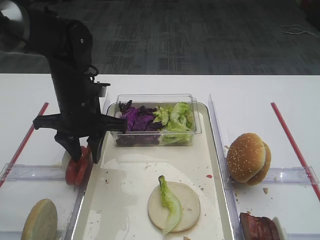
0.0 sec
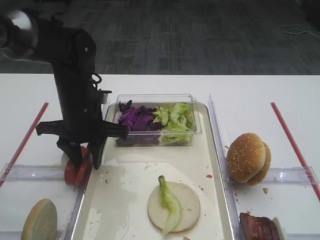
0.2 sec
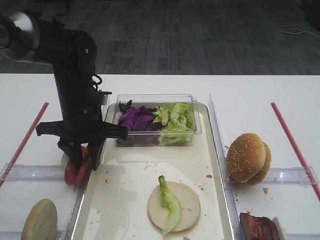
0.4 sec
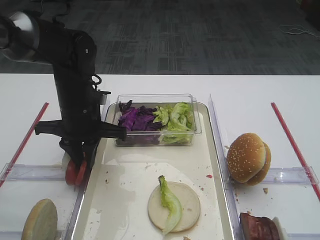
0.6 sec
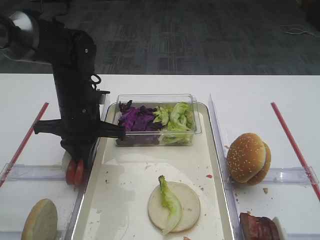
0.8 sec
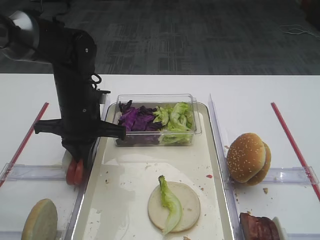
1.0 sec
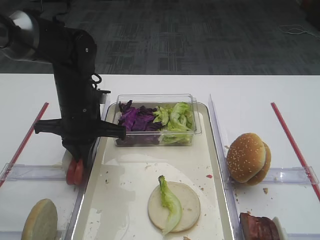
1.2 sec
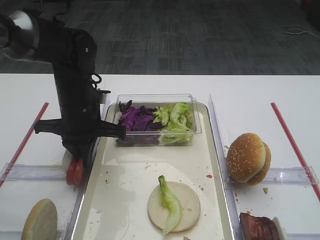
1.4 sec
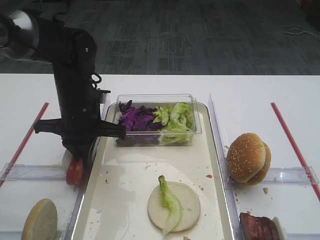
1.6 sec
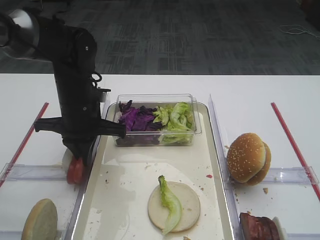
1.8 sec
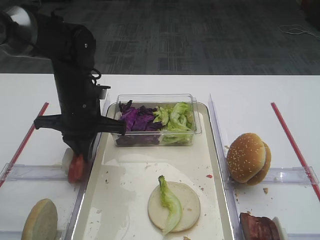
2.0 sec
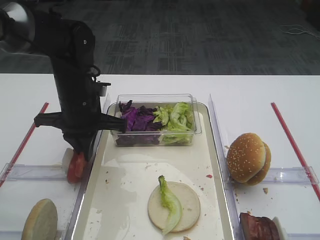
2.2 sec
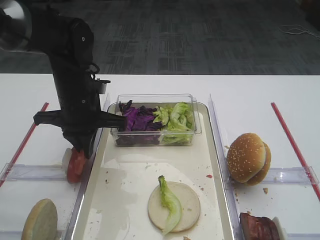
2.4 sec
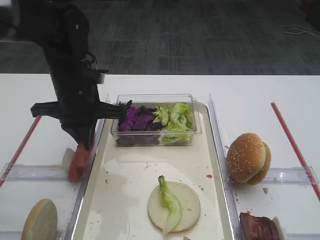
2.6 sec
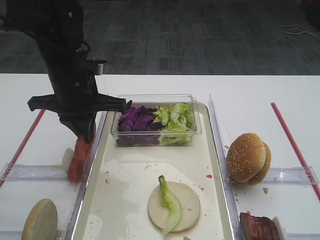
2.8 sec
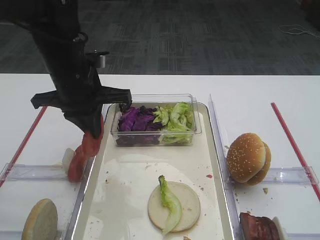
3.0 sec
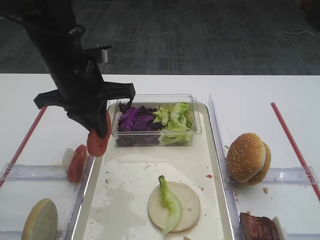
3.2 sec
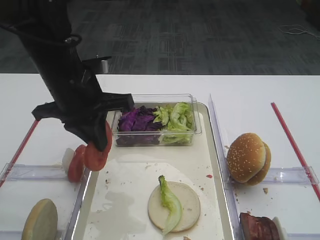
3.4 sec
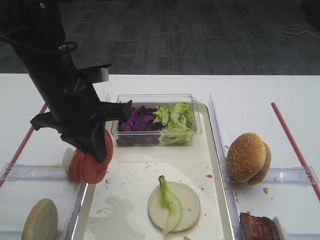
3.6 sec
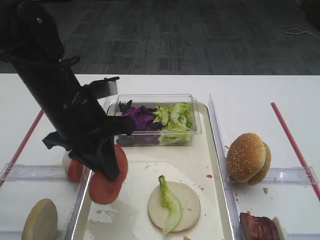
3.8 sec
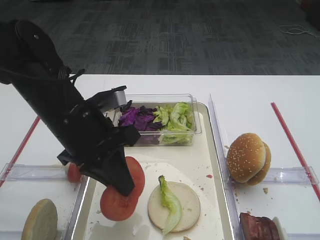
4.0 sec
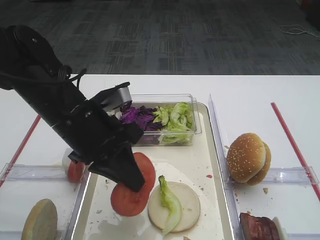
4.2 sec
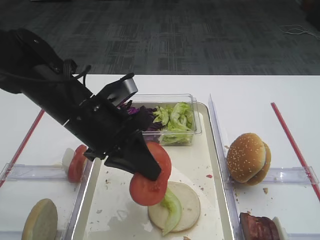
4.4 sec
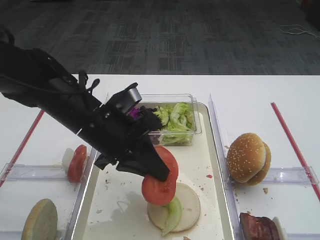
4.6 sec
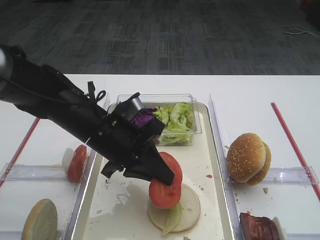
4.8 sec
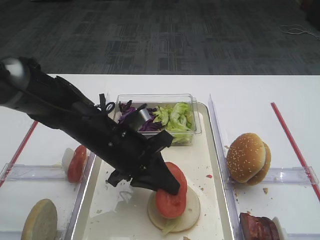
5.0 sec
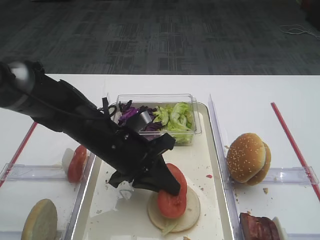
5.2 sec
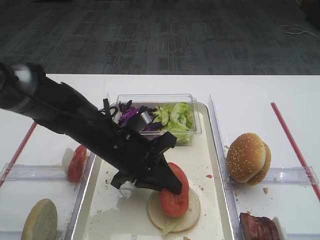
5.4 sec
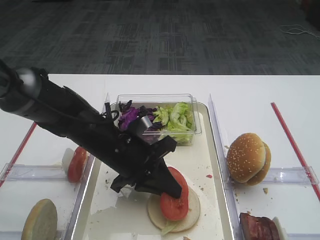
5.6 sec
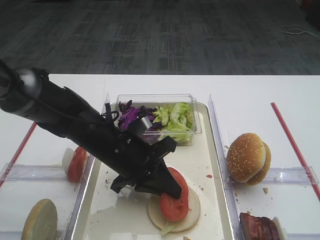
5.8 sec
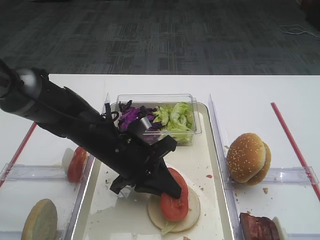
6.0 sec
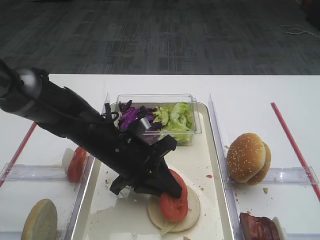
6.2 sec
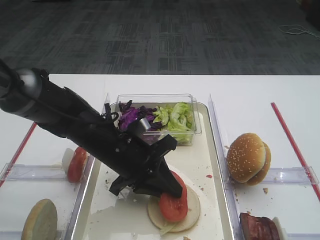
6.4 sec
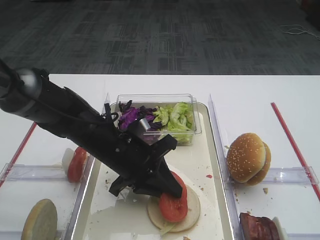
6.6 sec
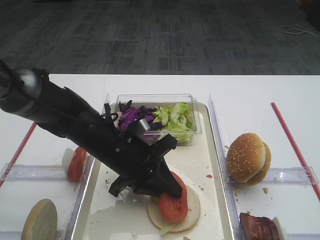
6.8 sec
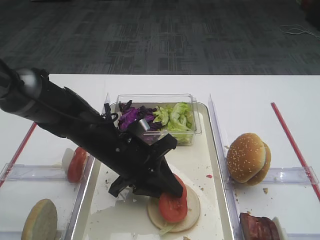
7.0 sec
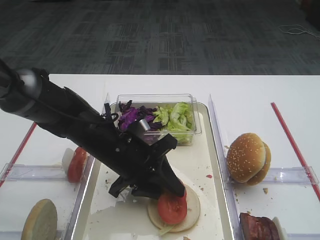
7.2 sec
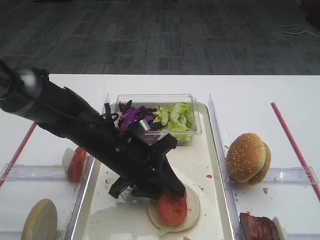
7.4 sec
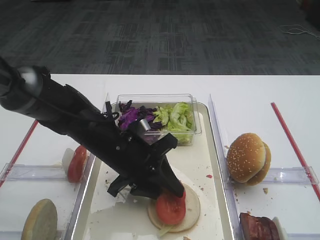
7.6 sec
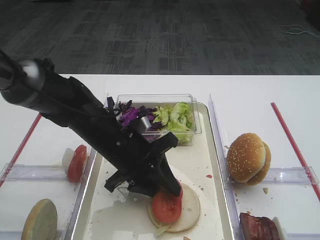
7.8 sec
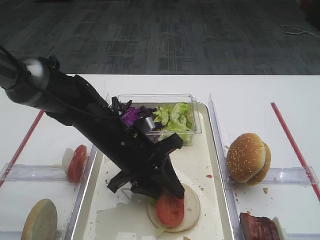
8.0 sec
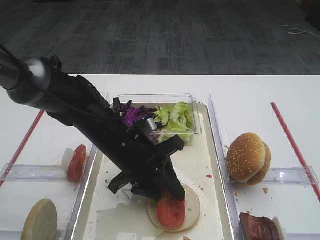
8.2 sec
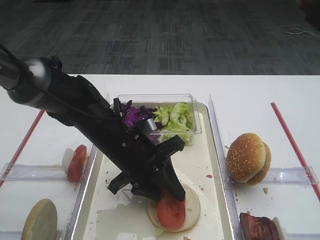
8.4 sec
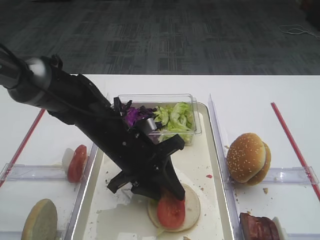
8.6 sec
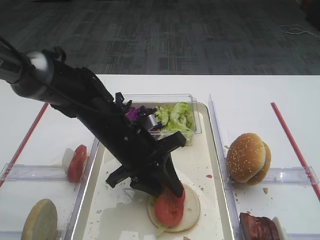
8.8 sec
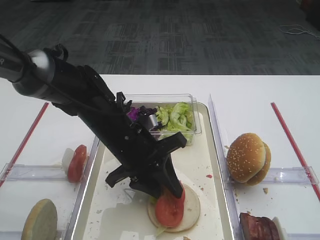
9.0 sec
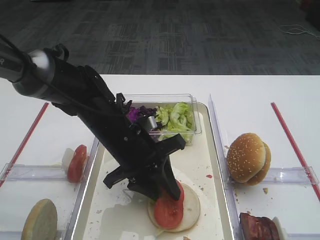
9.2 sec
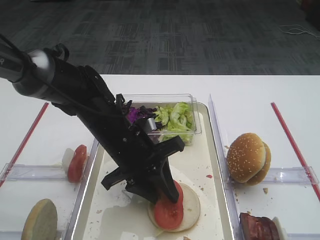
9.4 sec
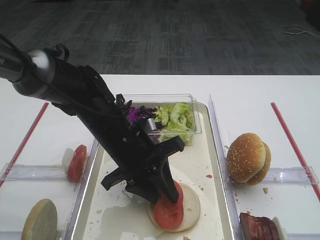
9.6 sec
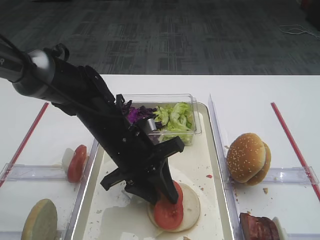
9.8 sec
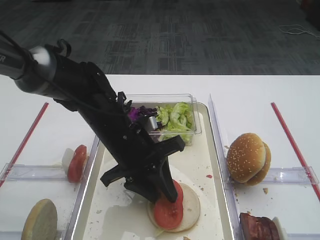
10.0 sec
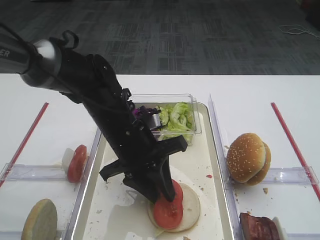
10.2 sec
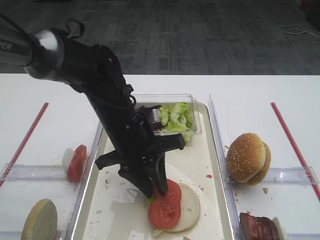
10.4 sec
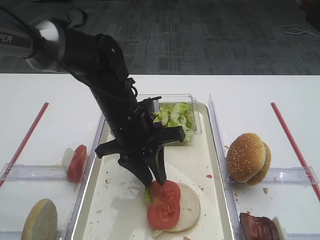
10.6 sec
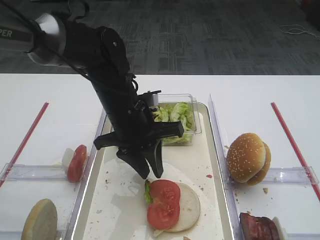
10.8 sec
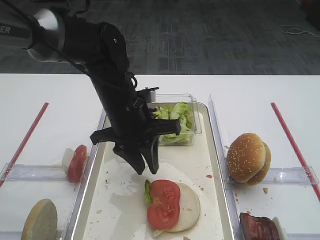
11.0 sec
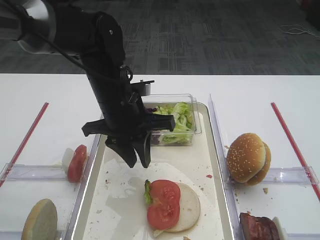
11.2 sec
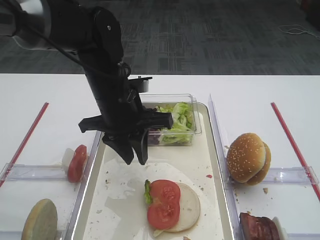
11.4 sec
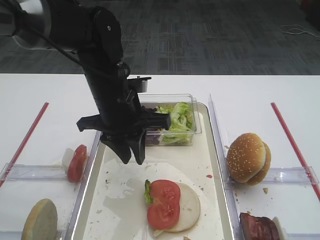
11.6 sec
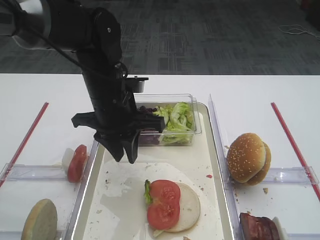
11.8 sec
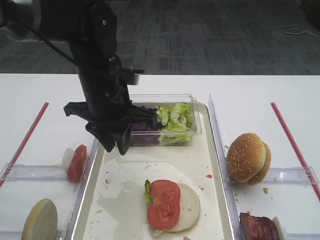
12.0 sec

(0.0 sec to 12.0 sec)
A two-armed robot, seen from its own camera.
Step, 0.0 sec - 2.6 sec: Pick up the tomato slice with the left gripper.
Step, 2.8 sec - 10.6 sec: Place the tomato slice on the lettuce leaf with the left gripper.
0.0 sec - 1.6 sec: The left gripper closes up.
1.6 sec - 3.0 sec: The left gripper goes some 5 cm upward.
3.0 sec - 4.4 sec: The left gripper travels backward by some 5 cm.
4.4 sec - 6.0 sec: The left gripper shifts some 10 cm downward.
6.0 sec - 7.6 sec: The left gripper opens up.
7.6 sec - 9.0 sec: The grippers move only a little.
9.0 sec - 10.4 sec: The grippers move only a little.
10.4 sec - 12.0 sec: The left gripper goes about 5 cm upward.

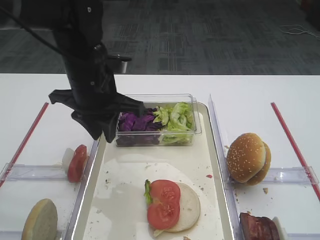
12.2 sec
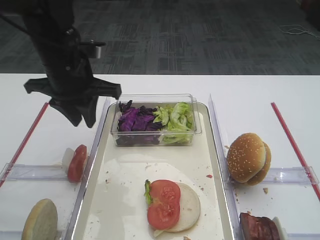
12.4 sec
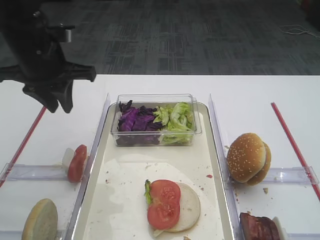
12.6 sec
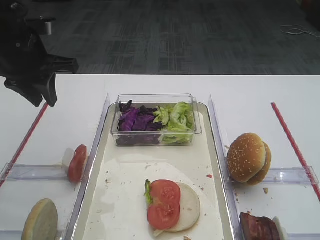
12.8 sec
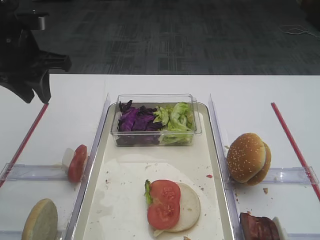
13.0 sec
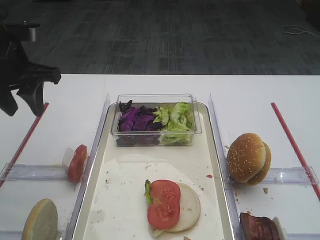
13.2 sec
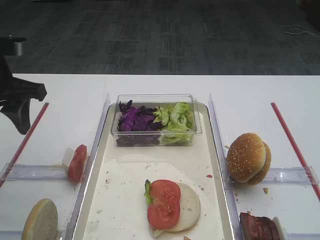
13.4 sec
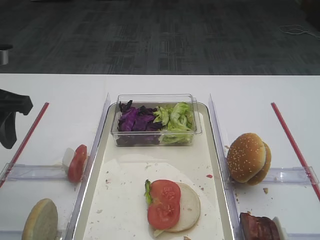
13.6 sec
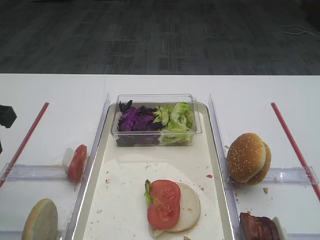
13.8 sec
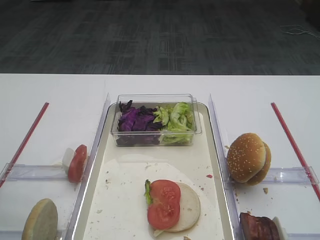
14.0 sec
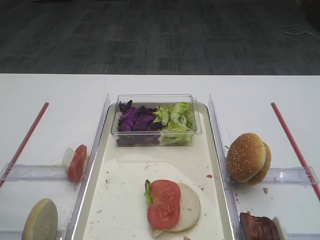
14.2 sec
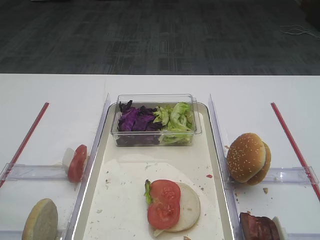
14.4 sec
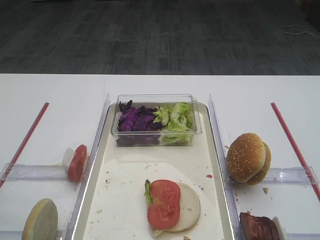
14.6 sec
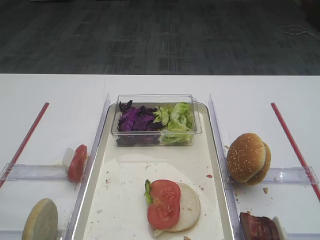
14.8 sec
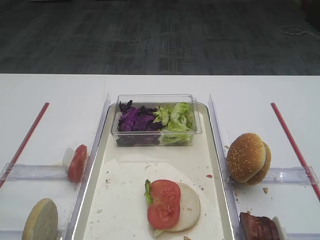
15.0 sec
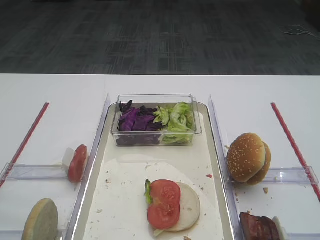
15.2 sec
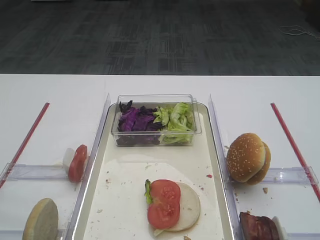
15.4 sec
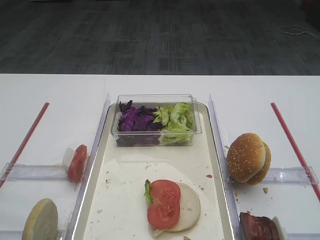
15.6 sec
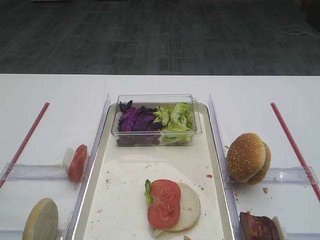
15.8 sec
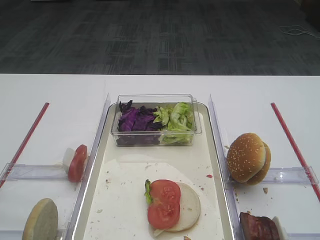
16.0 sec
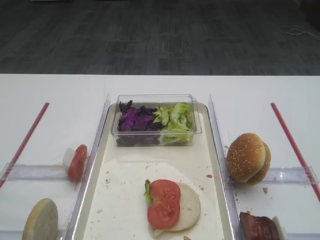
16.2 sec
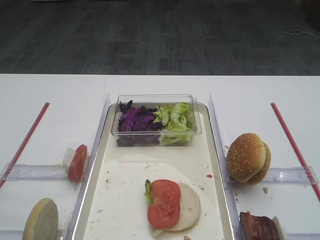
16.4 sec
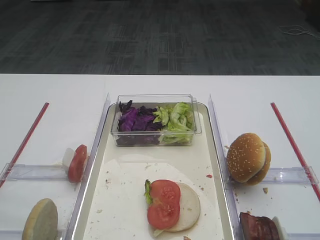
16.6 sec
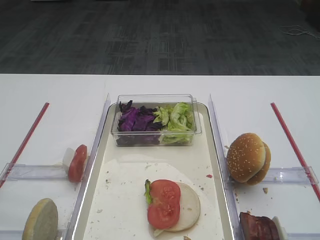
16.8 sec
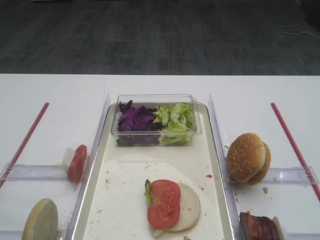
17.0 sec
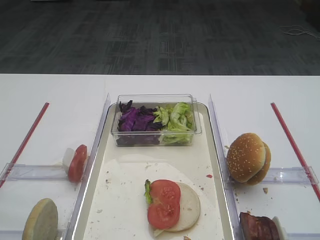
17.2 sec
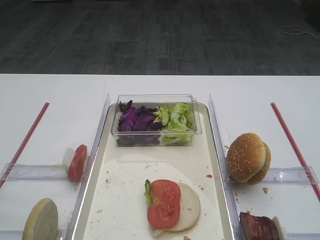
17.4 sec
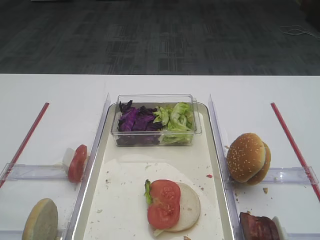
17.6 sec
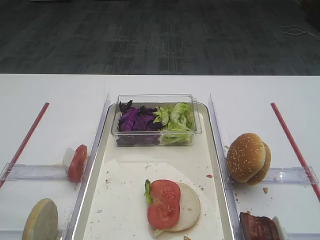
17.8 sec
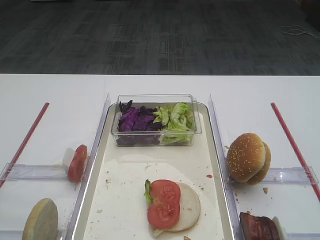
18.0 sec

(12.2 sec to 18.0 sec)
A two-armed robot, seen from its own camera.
12.2 sec - 13.6 sec: The left gripper moves to the left, roughly 15 cm, and opens.
13.6 sec - 15.0 sec: The left gripper moves backward, approximately 25 cm.
16.6 sec - 18.0 sec: Neither gripper changes place.

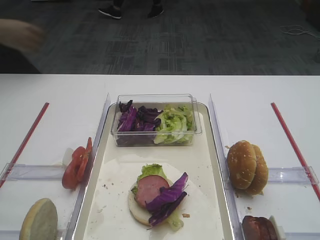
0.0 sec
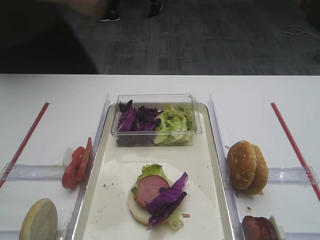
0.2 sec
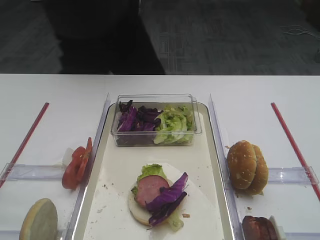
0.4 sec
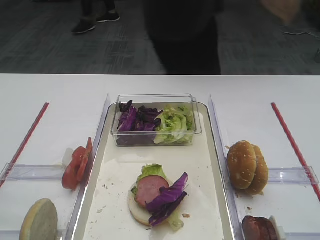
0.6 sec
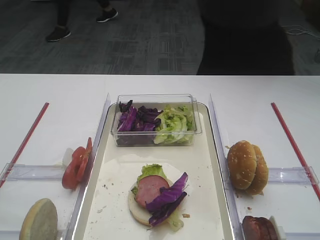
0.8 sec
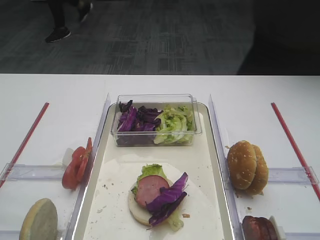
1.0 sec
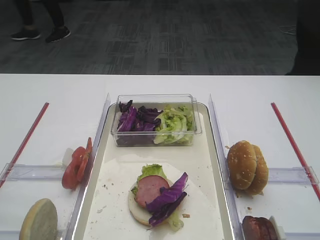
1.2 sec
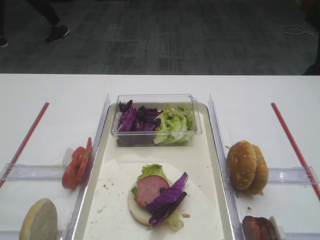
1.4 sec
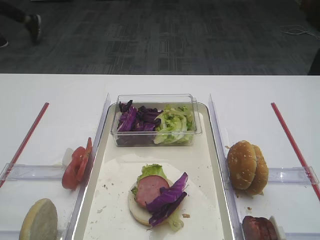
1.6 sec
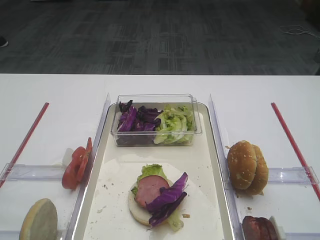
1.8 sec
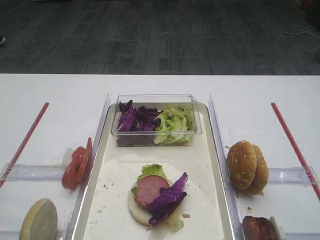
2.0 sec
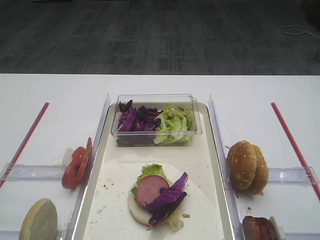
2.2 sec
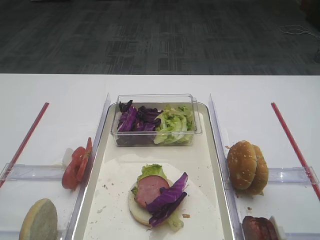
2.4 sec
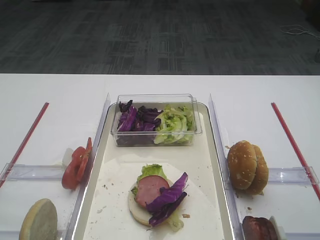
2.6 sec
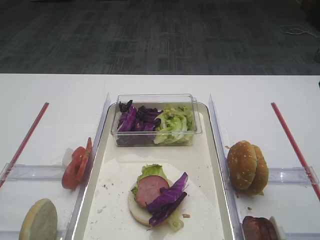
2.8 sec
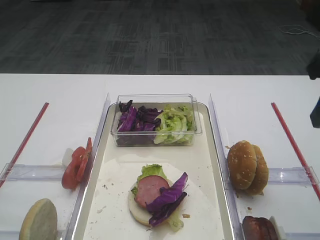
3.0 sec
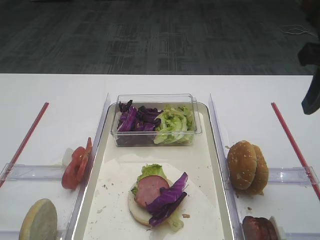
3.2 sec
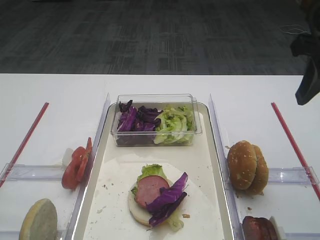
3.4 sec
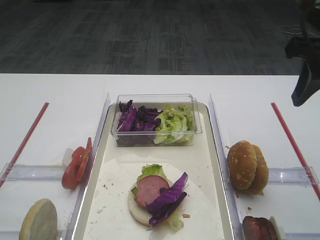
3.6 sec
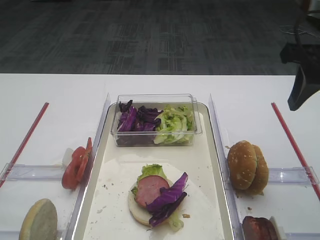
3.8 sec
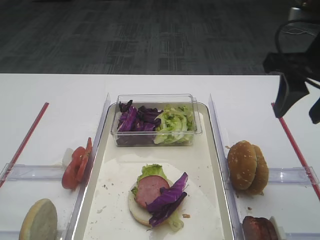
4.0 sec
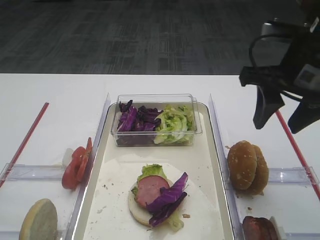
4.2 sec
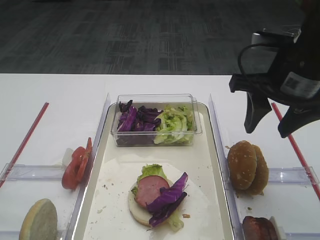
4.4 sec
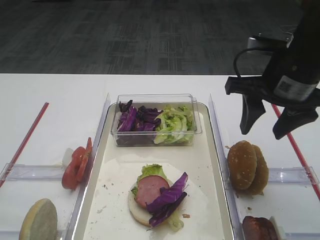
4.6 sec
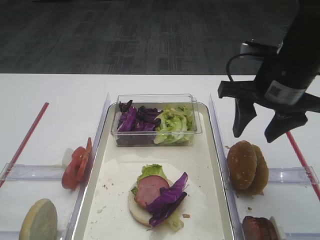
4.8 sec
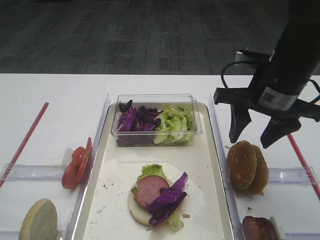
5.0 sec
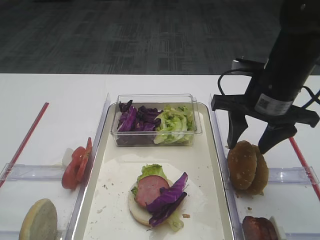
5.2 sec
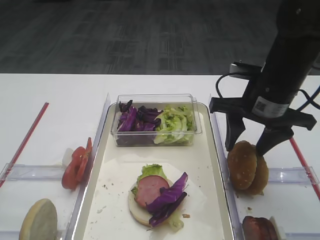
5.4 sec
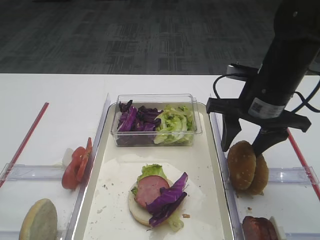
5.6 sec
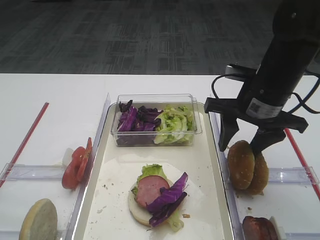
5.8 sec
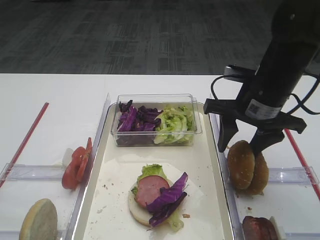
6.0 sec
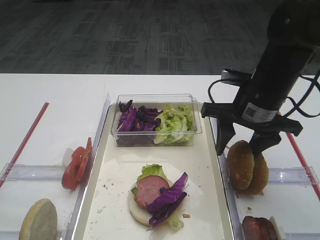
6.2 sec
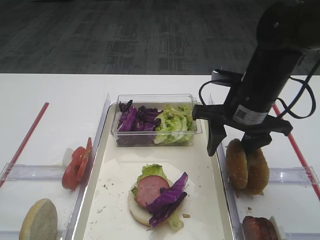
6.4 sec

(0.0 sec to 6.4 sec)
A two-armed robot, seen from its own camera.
1.6 sec - 3.2 sec: The right gripper heads forward, covering some 20 cm.
3.2 sec - 4.8 sec: The right gripper moves downward, forward and to the left, about 10 cm.
4.8 sec - 6.4 sec: The right gripper moves downward, about 5 cm.
